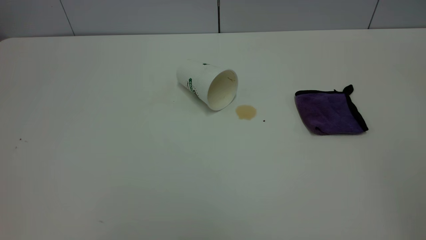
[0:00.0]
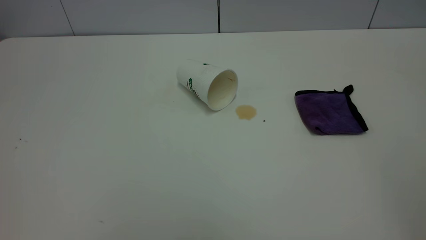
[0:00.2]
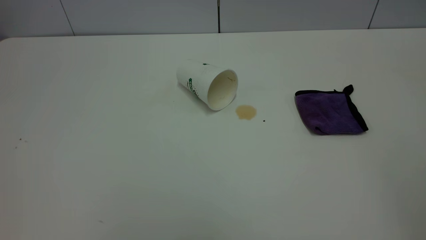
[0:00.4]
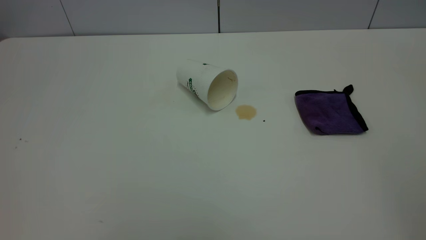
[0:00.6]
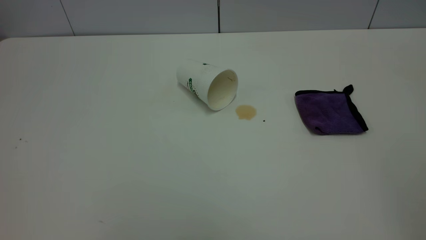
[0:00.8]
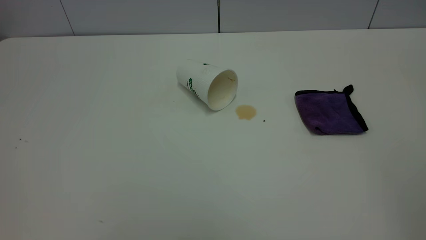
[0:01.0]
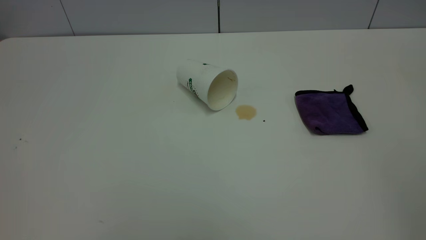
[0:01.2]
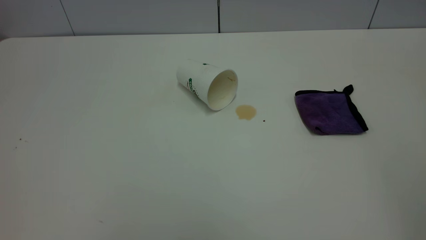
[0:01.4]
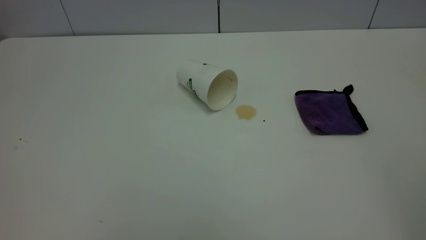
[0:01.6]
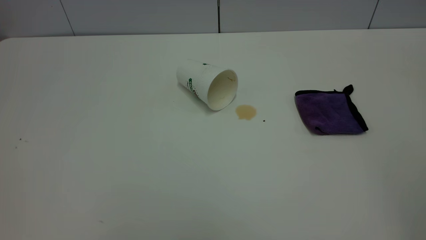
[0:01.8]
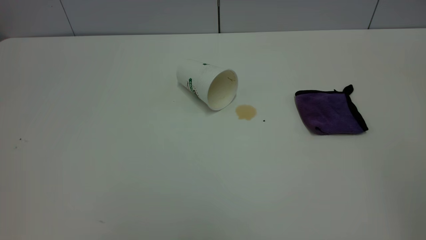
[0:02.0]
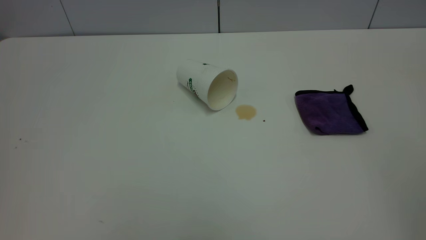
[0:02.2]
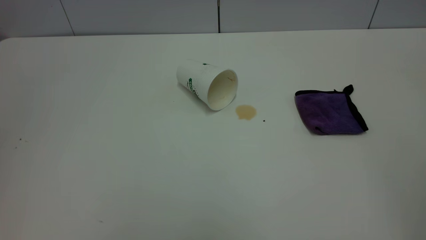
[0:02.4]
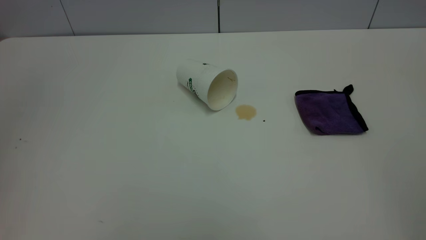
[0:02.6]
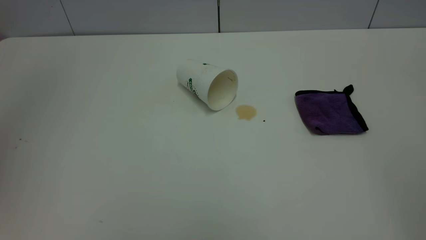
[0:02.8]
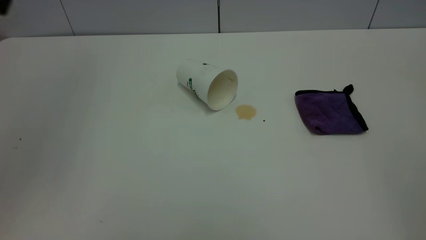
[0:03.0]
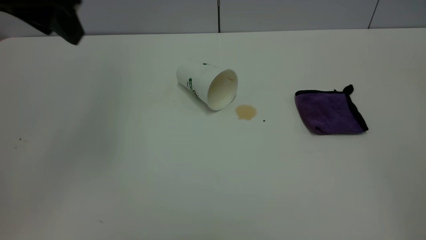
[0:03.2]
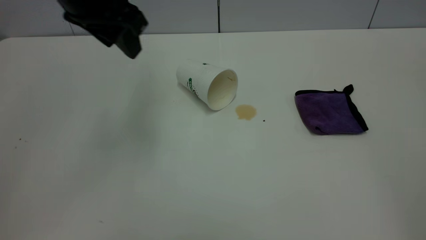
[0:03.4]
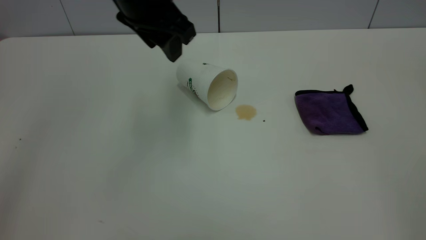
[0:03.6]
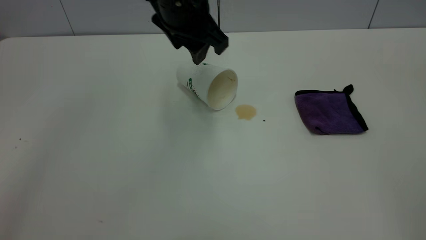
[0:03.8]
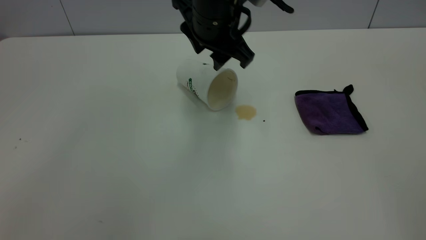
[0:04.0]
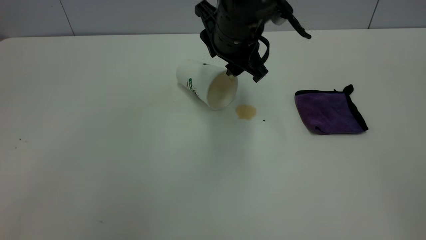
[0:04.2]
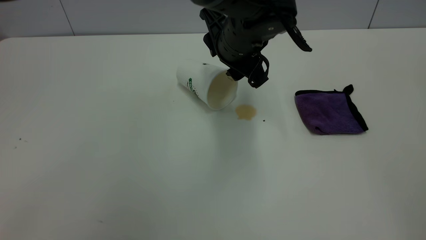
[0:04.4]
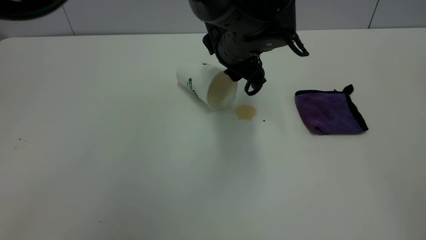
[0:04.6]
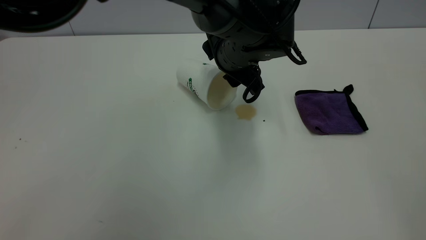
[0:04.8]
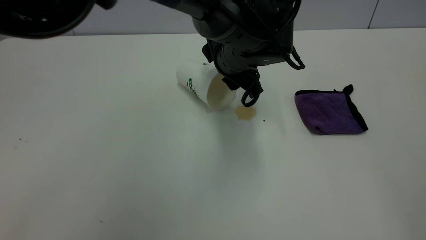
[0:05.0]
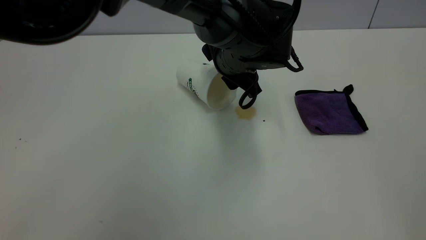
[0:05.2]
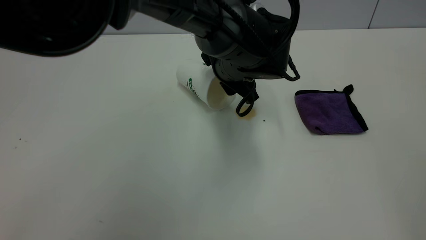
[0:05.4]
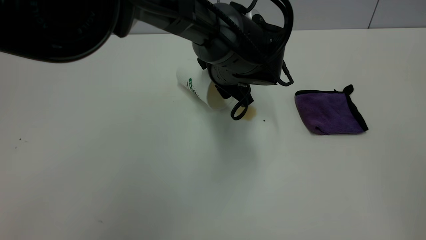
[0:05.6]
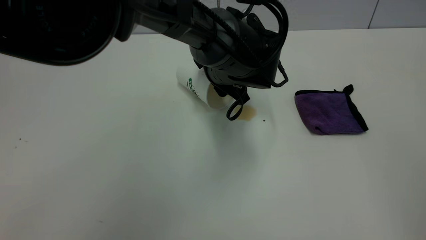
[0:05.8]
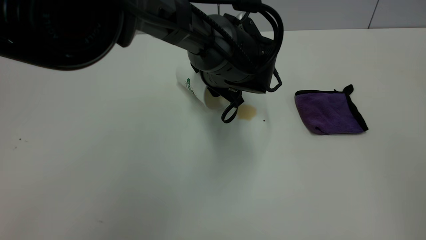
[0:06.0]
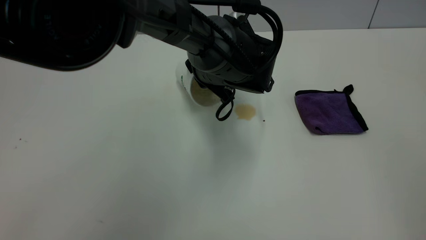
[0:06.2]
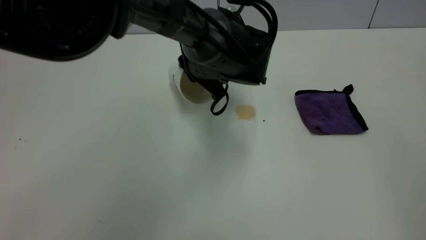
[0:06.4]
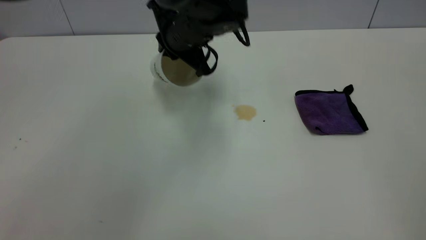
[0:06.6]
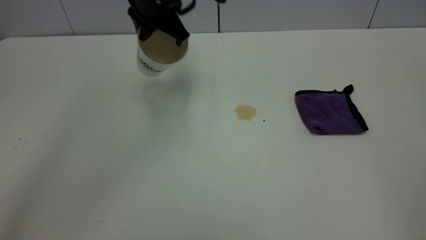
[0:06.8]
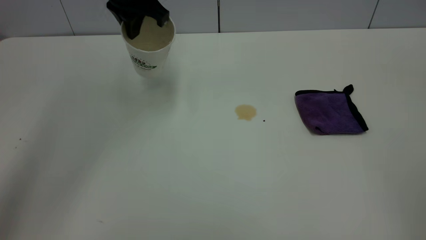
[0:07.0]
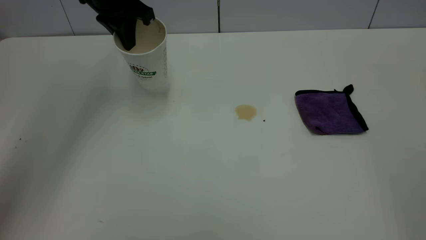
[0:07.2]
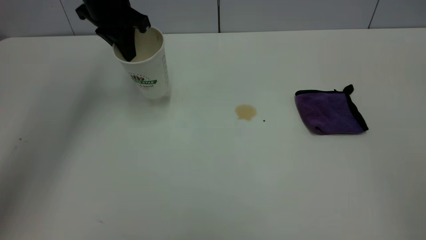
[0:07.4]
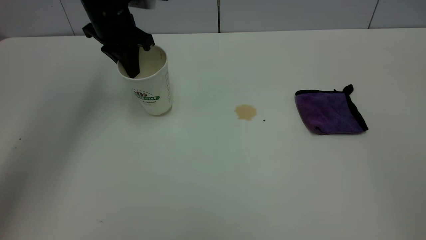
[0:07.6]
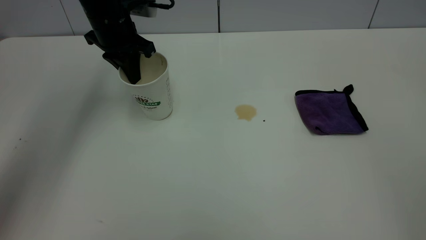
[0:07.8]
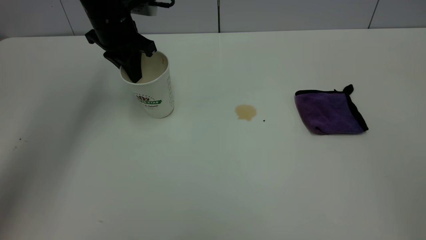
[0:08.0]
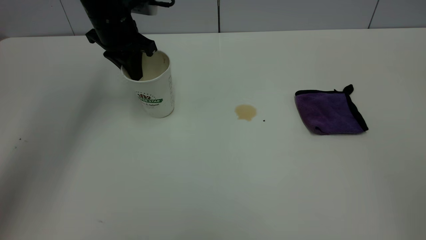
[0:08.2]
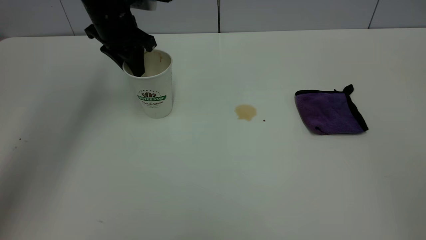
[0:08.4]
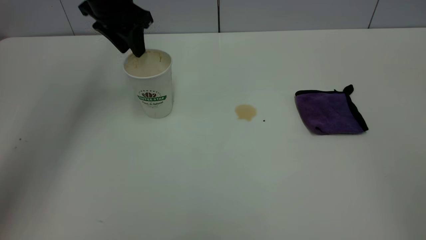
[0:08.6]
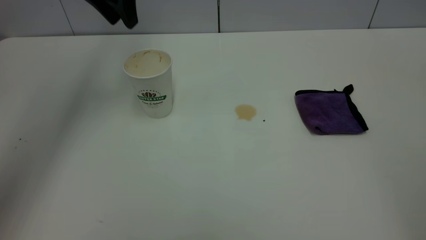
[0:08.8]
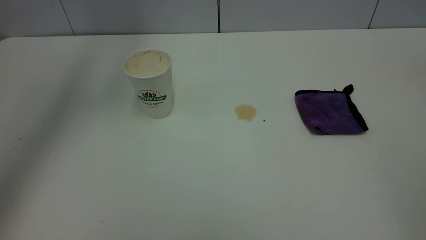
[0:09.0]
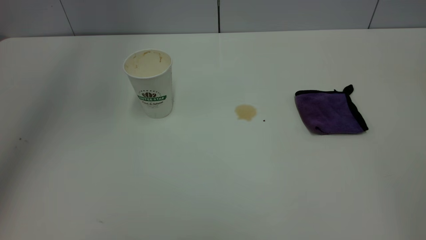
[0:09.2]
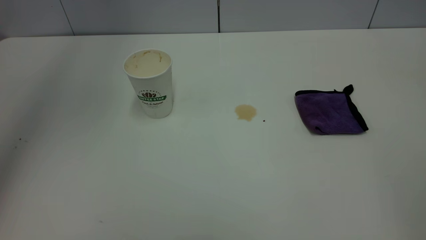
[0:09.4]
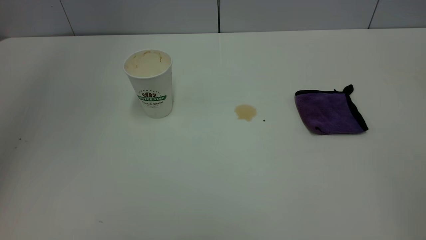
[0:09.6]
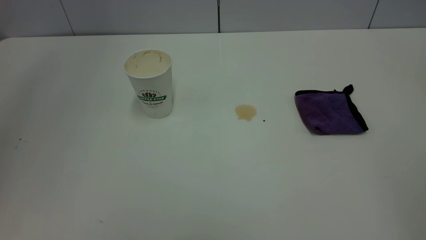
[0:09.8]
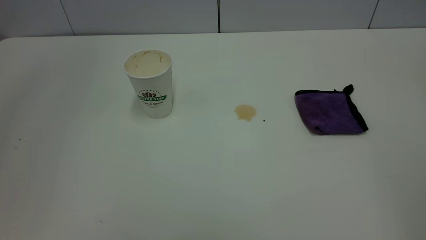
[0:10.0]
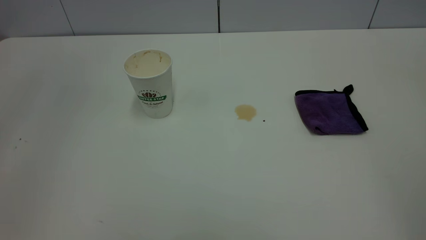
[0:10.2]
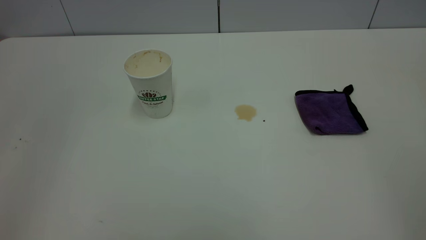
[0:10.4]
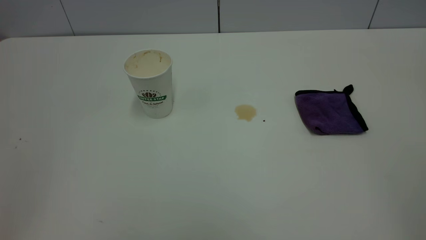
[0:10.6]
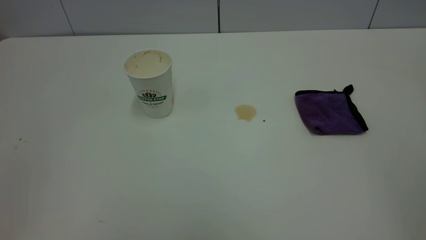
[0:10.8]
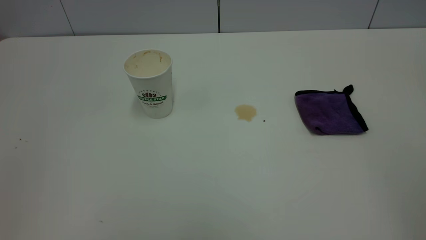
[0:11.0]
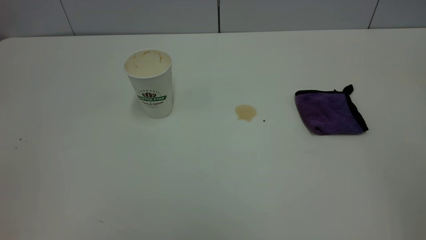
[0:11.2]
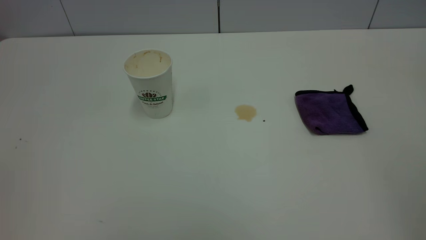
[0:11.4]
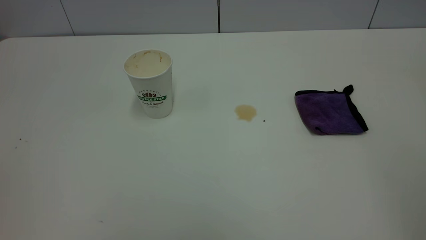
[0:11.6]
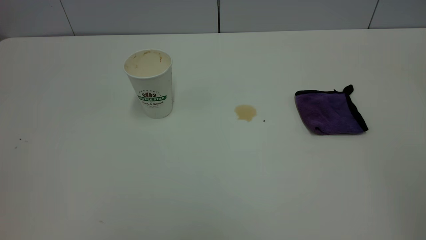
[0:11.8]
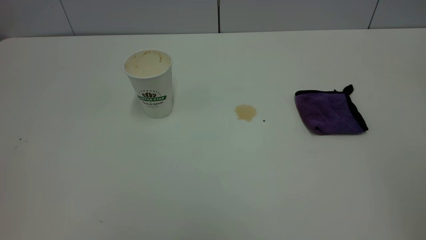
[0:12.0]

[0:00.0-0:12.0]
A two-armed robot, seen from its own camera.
Task of the whole recording: the left gripper pick up the fallen cup and place it upright, the right gripper grasp the purple rag and wipe the tea stain on the table, the right gripper put the purple rag back in its original position.
Step, 0:00.0 to 0:08.6: Stand the paper cup upright.
0:00.0 to 0:01.6: Both grippers stay put.
0:03.0 to 0:04.4: The left gripper is displaced to the right and downward by some 35 cm.
0:04.4 to 0:06.0: The left gripper goes about 5 cm downward.
0:06.0 to 0:07.6: The left gripper shifts some 25 cm to the left, upward and forward, and closes its fingers.
0:07.6 to 0:09.0: The left gripper moves upward, approximately 20 cm, and opens.

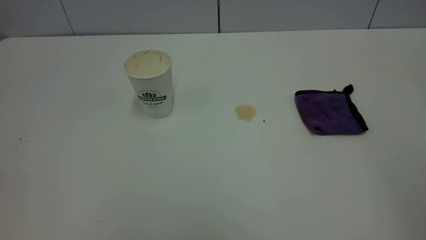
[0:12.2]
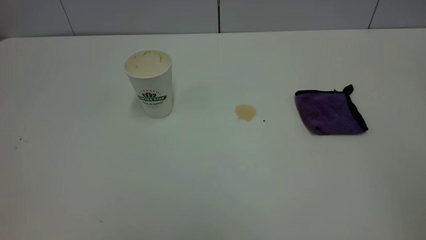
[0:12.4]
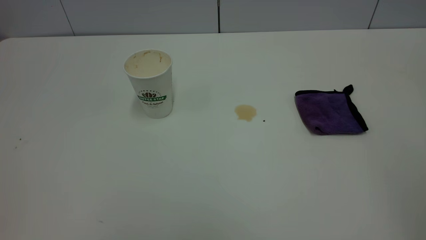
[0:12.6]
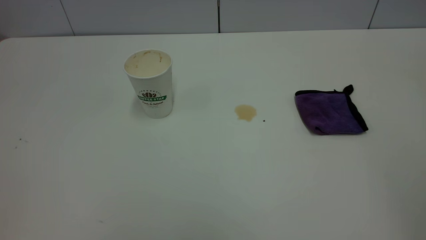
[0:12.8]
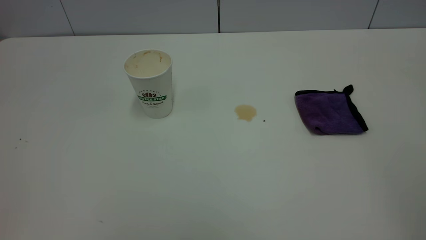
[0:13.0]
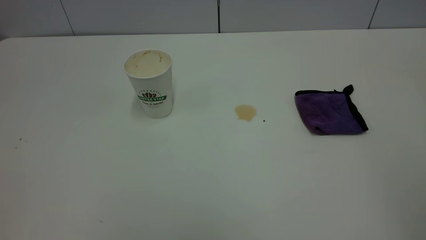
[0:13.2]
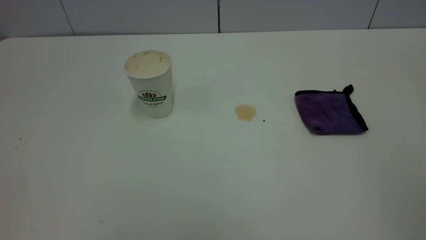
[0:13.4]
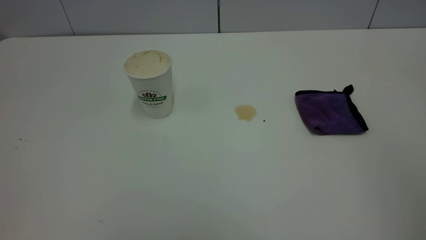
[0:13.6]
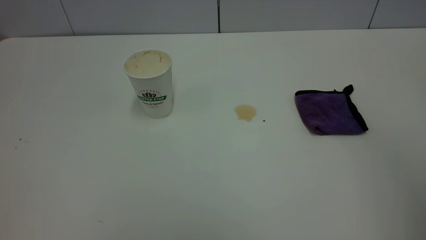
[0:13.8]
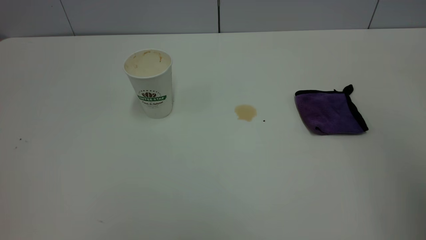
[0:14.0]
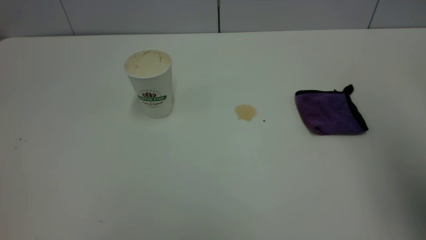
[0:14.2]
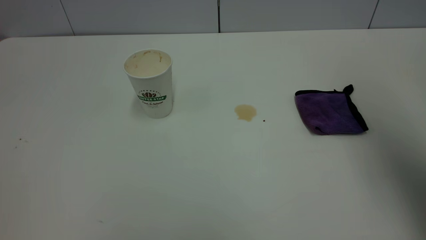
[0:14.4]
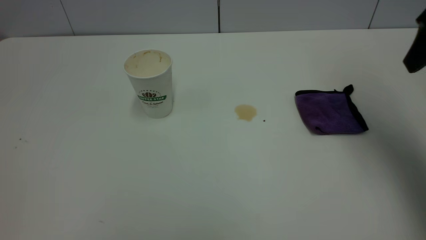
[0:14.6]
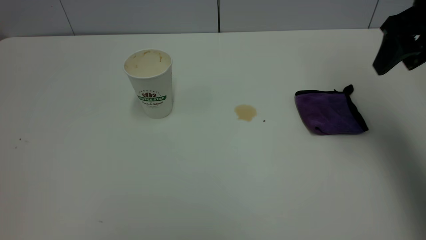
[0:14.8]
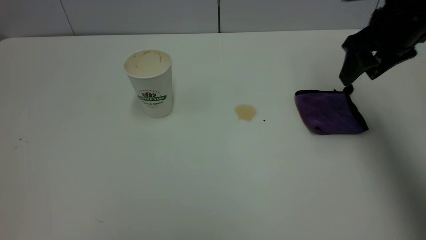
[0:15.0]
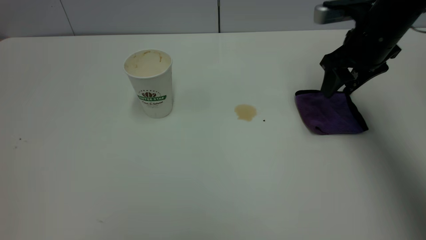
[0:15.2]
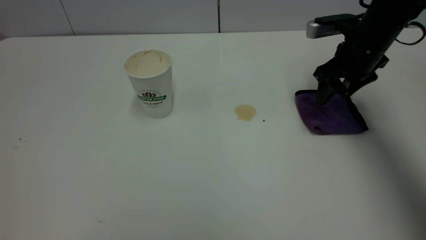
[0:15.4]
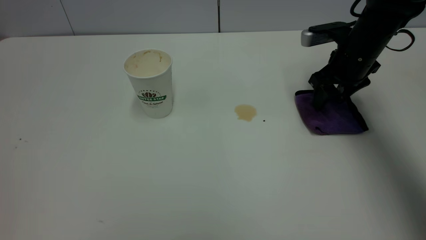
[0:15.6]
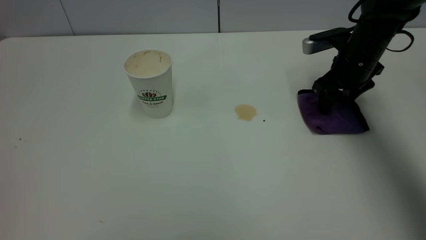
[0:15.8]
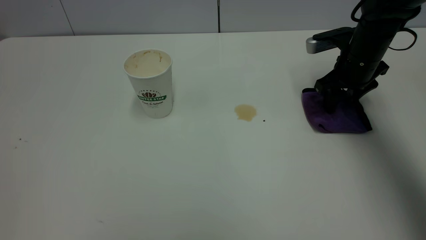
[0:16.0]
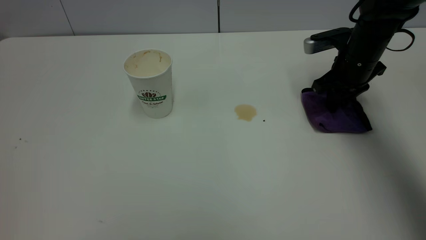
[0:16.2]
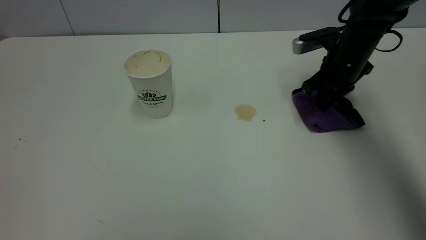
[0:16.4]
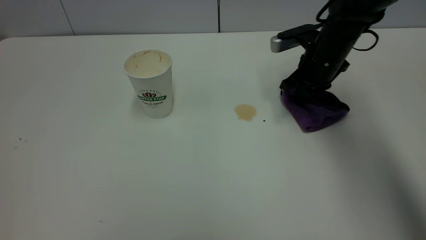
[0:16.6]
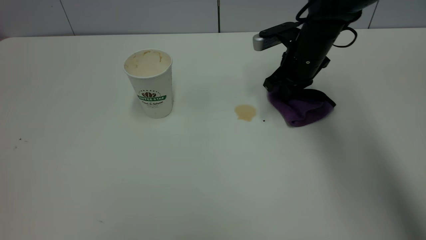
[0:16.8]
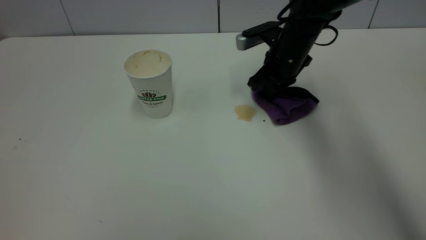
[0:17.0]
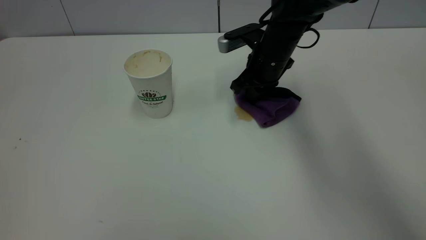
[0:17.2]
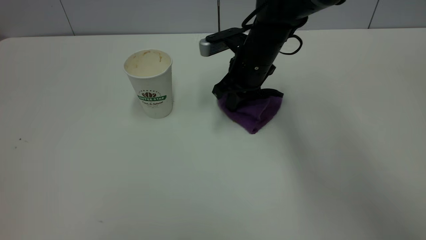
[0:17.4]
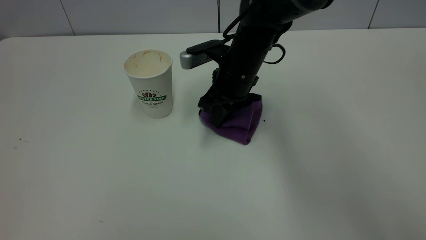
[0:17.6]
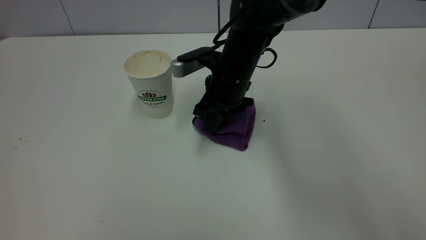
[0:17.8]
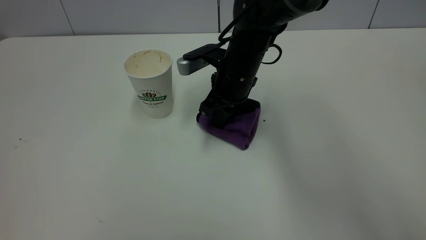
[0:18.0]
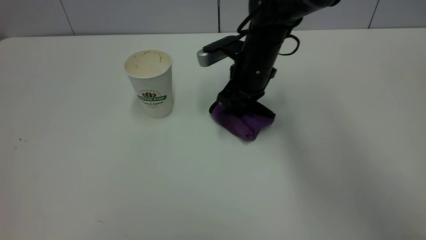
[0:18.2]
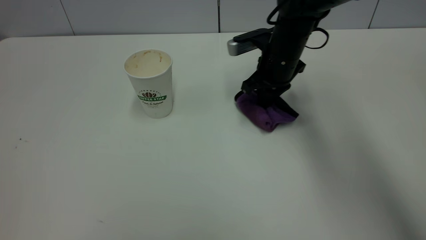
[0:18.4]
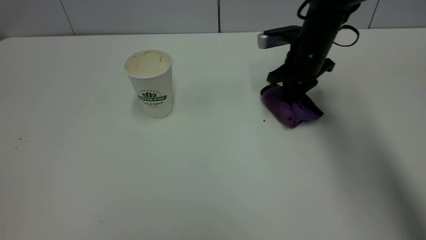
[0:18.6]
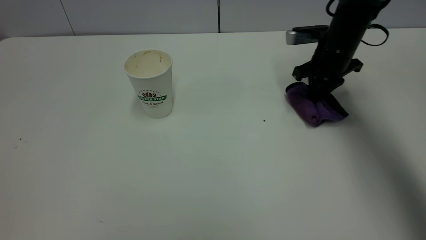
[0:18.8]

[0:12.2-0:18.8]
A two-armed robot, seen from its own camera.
Task of the whole recording: the left gripper pick up the fallen cup and place it upright, the right gripper grasp the purple rag and wipe the tea stain on the table, the right gripper put the purple rag back in its original position.
0:13.8 to 0:15.4: The right gripper moves forward and downward, approximately 40 cm.
0:15.4 to 0:17.2: The right gripper heads to the left, covering approximately 15 cm, and closes its fingers.
0:17.2 to 0:18.8: The right gripper is displaced to the right by roughly 15 cm.
